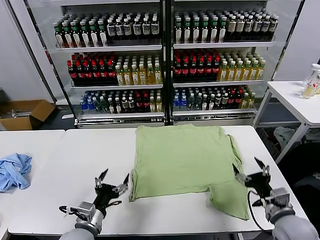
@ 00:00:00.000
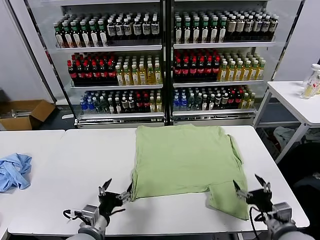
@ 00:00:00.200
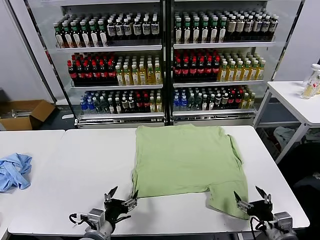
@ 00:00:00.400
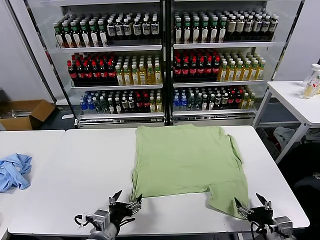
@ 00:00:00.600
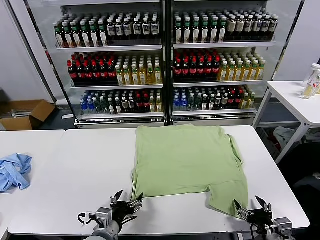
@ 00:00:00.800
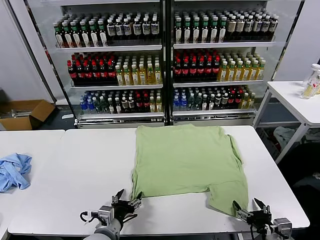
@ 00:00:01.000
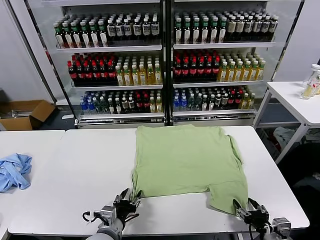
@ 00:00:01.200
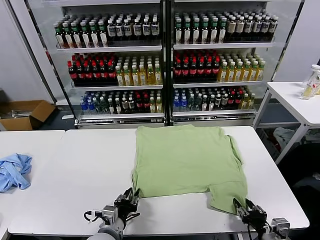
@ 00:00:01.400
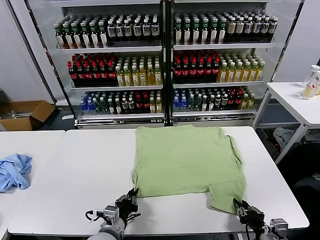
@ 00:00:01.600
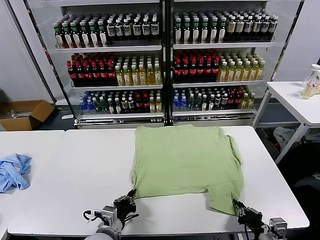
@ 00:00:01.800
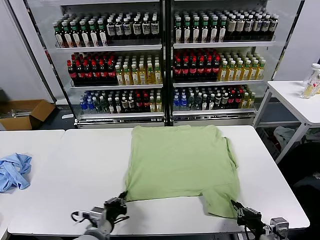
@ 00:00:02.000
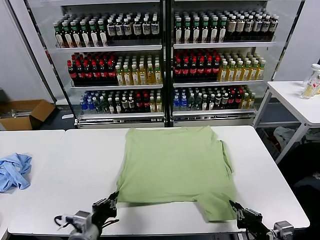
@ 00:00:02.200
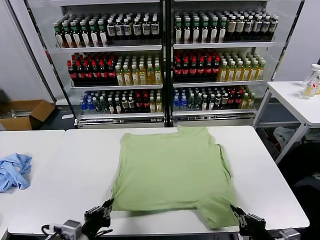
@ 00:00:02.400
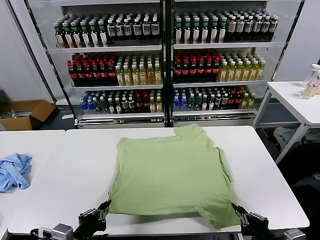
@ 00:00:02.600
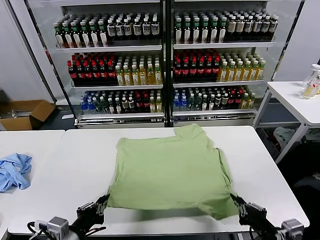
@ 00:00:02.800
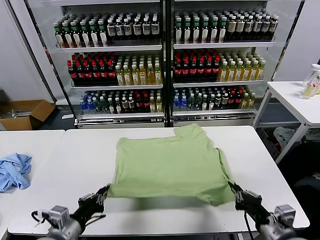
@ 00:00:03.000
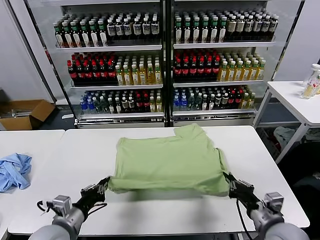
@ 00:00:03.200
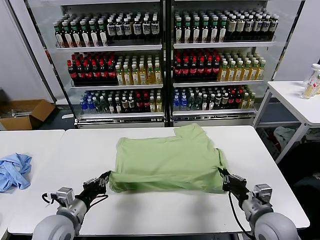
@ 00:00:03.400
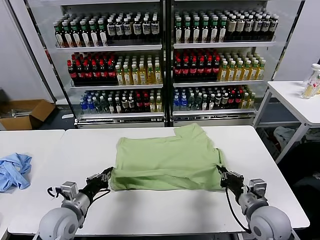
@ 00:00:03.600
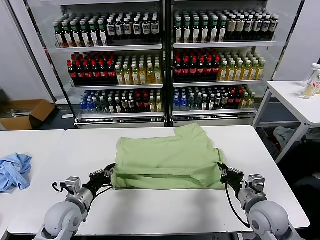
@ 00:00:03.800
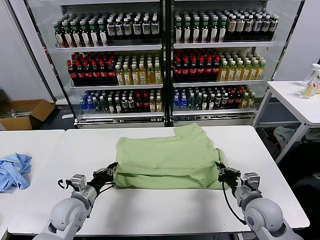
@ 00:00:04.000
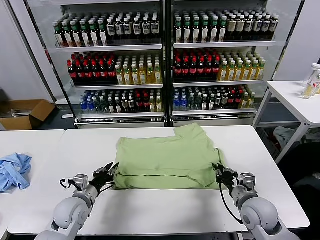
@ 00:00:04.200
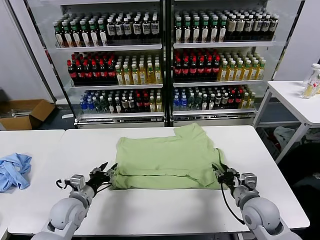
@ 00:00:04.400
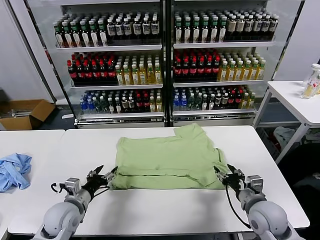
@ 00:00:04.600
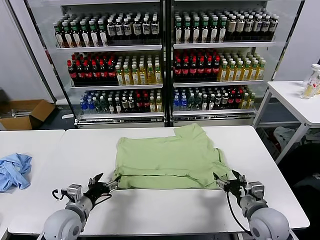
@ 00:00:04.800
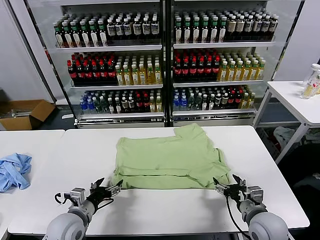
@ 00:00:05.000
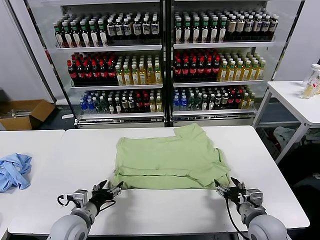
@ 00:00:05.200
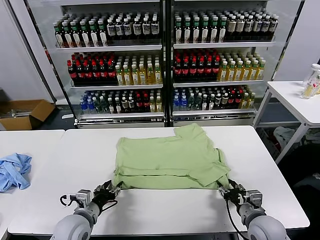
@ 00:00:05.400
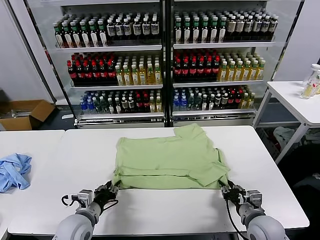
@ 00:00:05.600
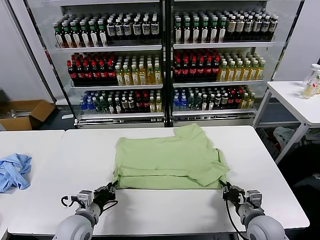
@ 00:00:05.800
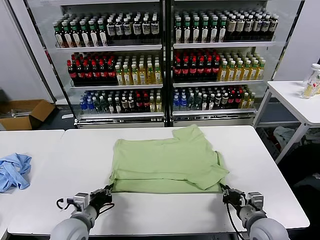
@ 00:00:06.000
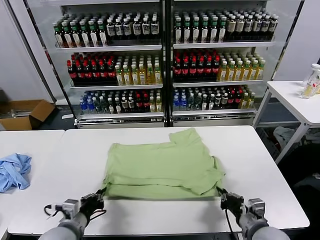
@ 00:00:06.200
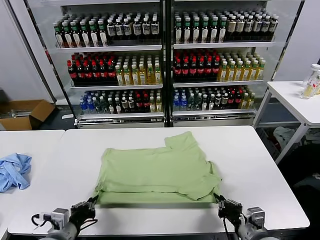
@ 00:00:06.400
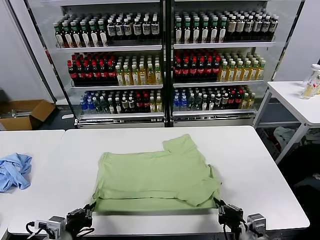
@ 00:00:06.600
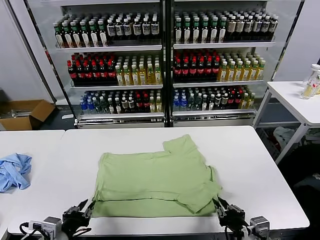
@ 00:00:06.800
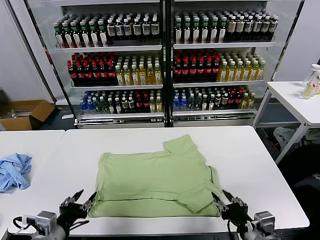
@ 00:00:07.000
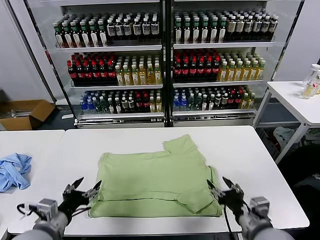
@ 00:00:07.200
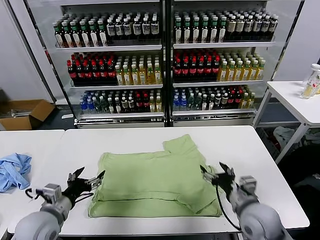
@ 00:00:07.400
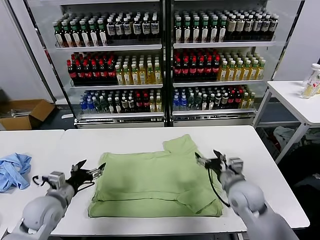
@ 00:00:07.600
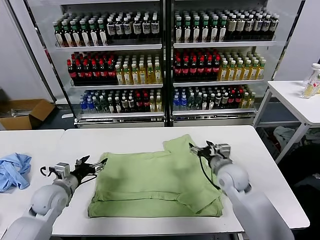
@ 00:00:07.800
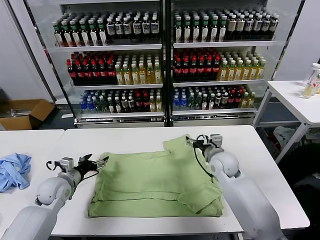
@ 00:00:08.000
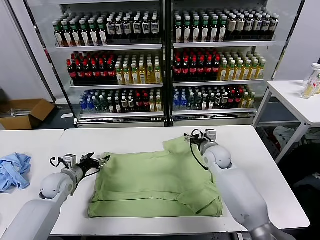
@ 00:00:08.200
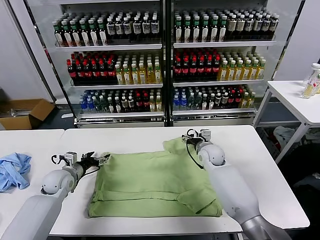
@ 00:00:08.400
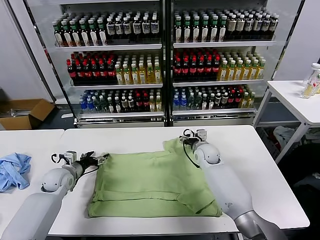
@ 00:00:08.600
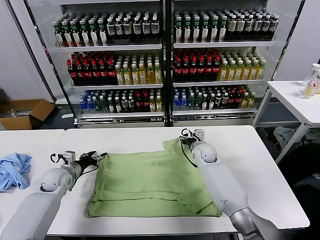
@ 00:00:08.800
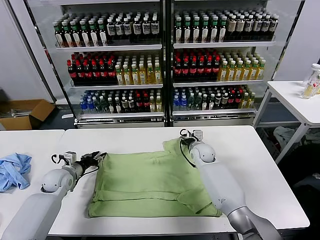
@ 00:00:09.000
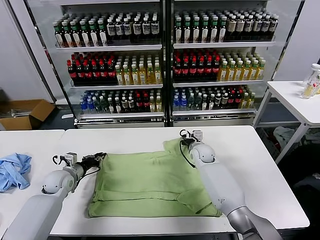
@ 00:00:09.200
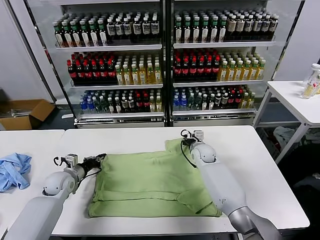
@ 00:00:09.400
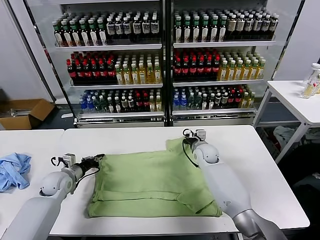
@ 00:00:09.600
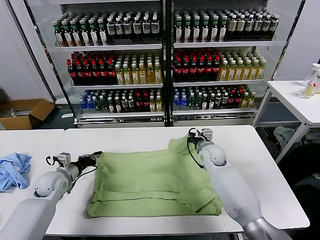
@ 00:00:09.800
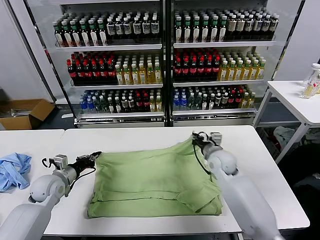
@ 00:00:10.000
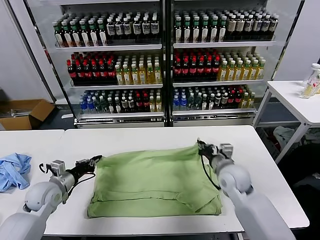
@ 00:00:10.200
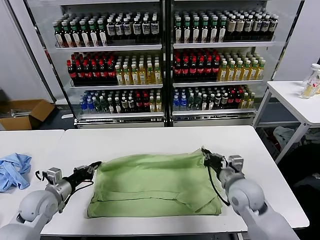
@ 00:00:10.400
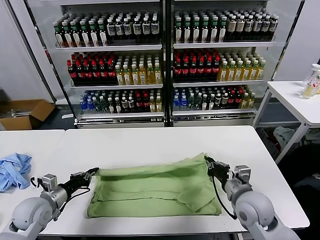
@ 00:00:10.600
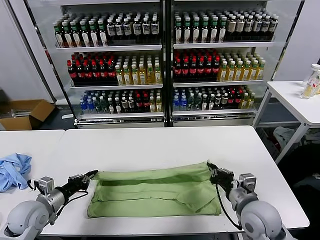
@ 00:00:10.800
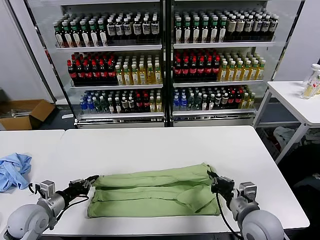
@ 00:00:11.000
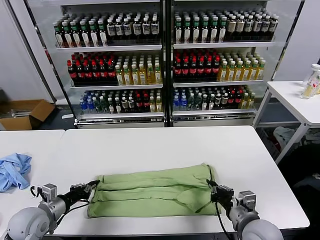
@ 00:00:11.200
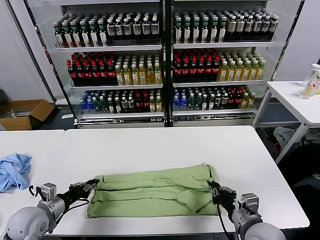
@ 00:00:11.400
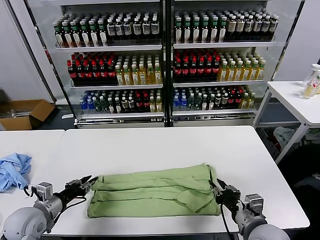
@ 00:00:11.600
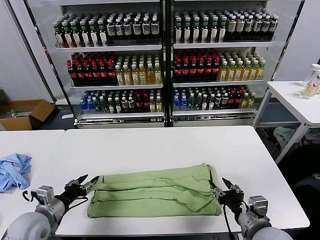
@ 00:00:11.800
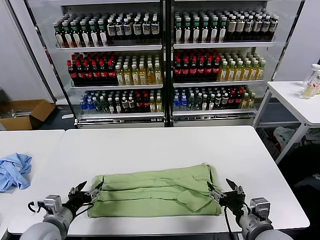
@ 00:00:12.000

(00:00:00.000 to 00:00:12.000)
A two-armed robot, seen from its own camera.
Task of the whole recording: fold and organize the clothes.
Step, 00:00:00.000 - 00:00:02.000: use both grippers simultaneously to clamp the lower edge of the clothing fabric.
Step, 00:00:02.200 - 00:00:04.400: use both grippers to drag the lower edge of the fabric forward and fold it over the upper edge.
Step, 00:00:04.600 - 00:00:06.800: Drag the clothes downward with both gripper.
Step, 00:00:07.200 - 00:00:09.400: use both grippers simultaneously to clamp the upper edge of the clothing fabric.
Step, 00:00:09.600 - 00:00:11.600: use both grippers to drag the upper edge of the fabric backward and fold it over the lower edge.
00:00:01.600 - 00:00:03.000: The left gripper shifts approximately 15 cm to the left and upward. The right gripper is displaced upward by roughly 10 cm.
00:00:03.000 - 00:00:04.400: The right gripper is displaced forward by approximately 10 cm, and opens up; the left gripper shifts roughly 15 cm forward and downward, and opens.
00:00:04.400 - 00:00:06.000: Both grippers travel together backward, about 5 cm. The left gripper closes its fingers. The right gripper closes.
00:00:06.000 - 00:00:07.600: The left gripper goes about 10 cm to the left and forward, and opens its fingers. The right gripper heads forward and to the left, covering some 15 cm, and opens up.
00:00:07.600 - 00:00:09.000: The right gripper heads forward and to the left, covering approximately 20 cm, and closes, while the left gripper moves forward and downward, about 15 cm, and closes its fingers.
00:00:09.000 - 00:00:10.400: The left gripper is displaced backward by roughly 10 cm, and closes up. Meanwhile the right gripper heads backward, covering roughly 20 cm, and closes up.
00:00:10.400 - 00:00:12.000: The left gripper goes about 10 cm backward and to the right, and opens; the right gripper moves backward, roughly 15 cm, and opens.

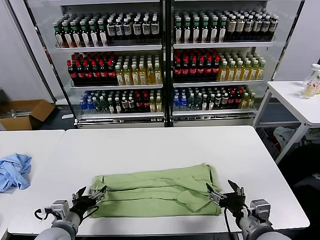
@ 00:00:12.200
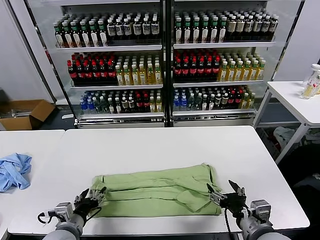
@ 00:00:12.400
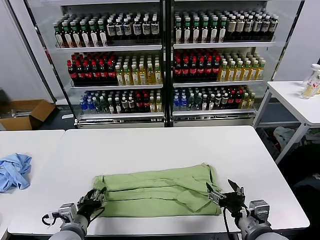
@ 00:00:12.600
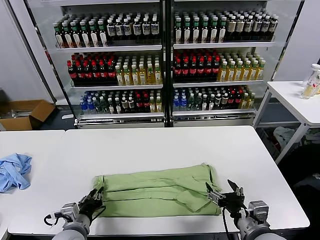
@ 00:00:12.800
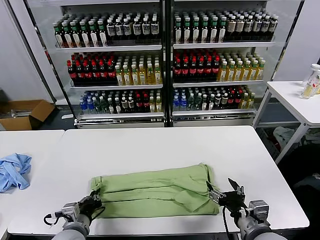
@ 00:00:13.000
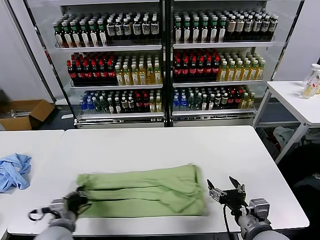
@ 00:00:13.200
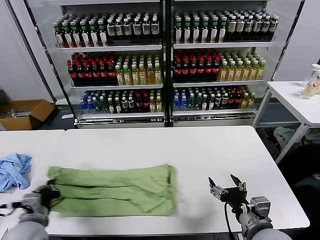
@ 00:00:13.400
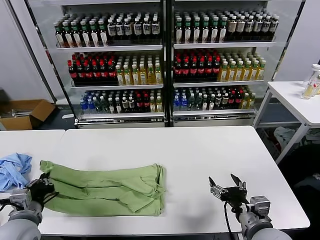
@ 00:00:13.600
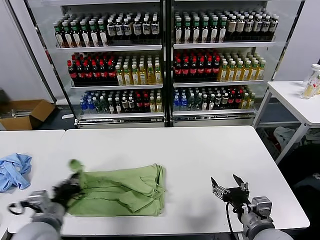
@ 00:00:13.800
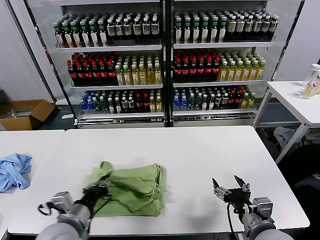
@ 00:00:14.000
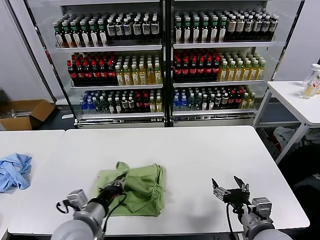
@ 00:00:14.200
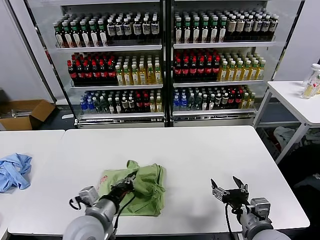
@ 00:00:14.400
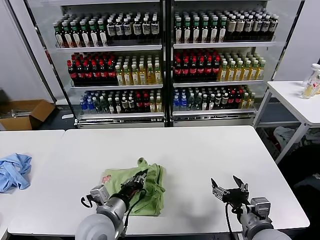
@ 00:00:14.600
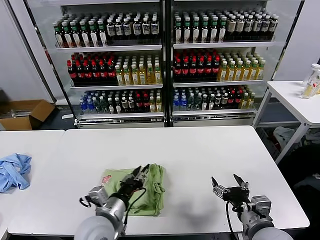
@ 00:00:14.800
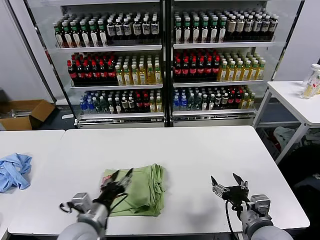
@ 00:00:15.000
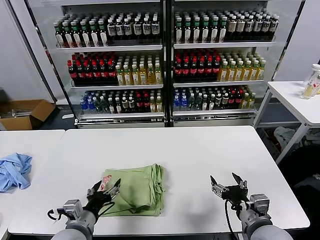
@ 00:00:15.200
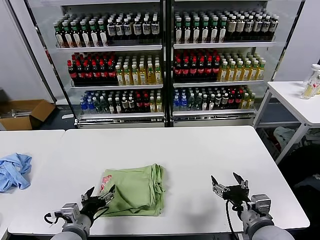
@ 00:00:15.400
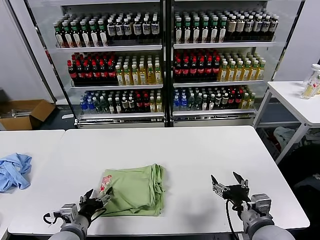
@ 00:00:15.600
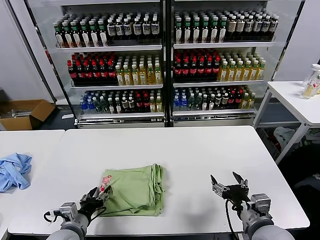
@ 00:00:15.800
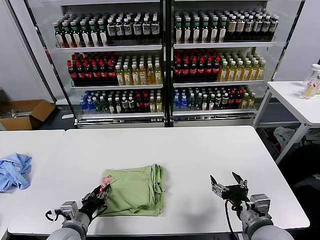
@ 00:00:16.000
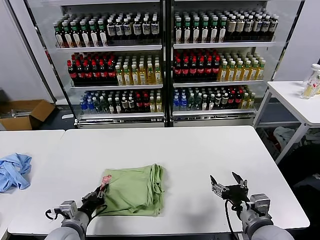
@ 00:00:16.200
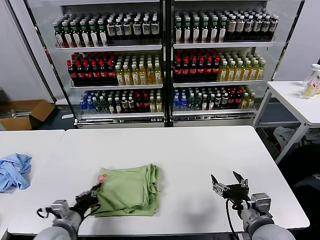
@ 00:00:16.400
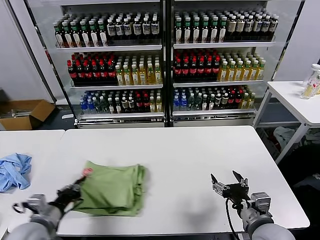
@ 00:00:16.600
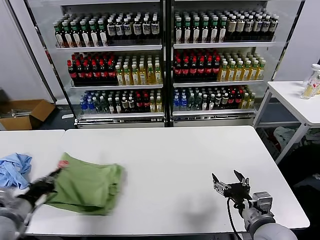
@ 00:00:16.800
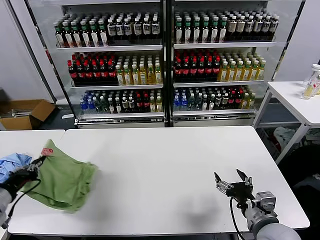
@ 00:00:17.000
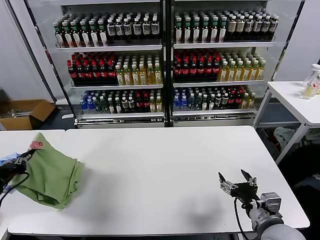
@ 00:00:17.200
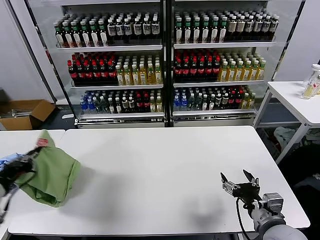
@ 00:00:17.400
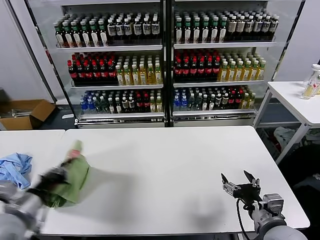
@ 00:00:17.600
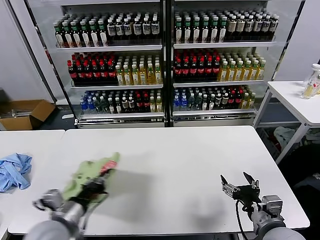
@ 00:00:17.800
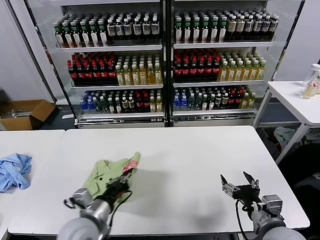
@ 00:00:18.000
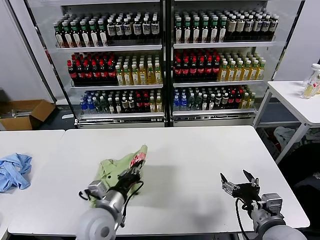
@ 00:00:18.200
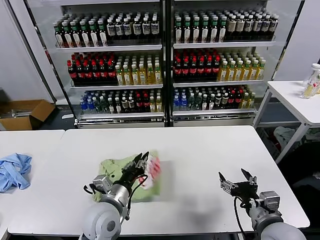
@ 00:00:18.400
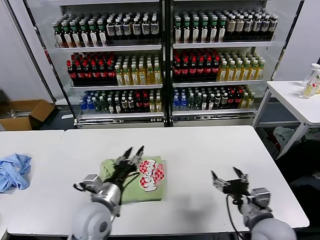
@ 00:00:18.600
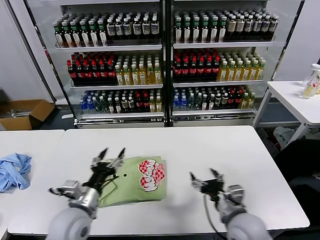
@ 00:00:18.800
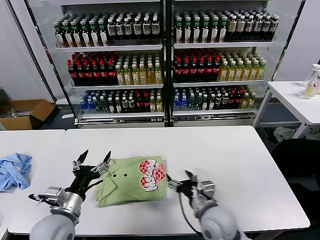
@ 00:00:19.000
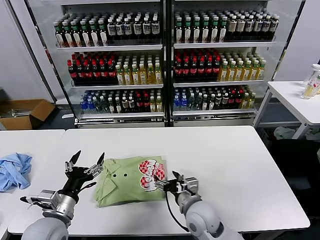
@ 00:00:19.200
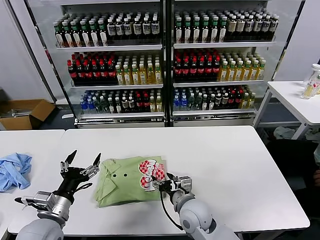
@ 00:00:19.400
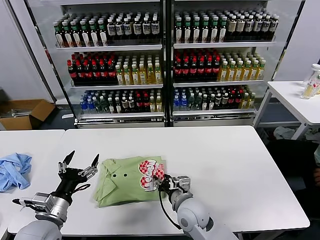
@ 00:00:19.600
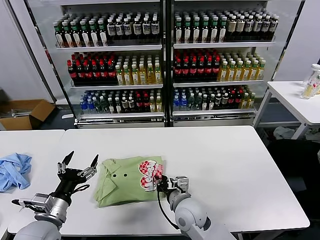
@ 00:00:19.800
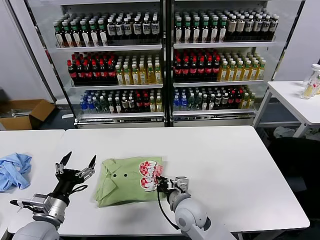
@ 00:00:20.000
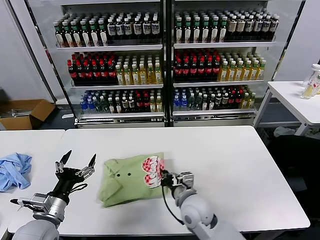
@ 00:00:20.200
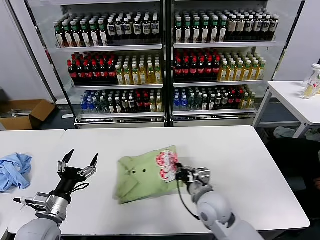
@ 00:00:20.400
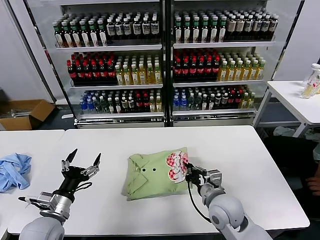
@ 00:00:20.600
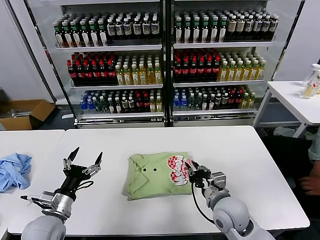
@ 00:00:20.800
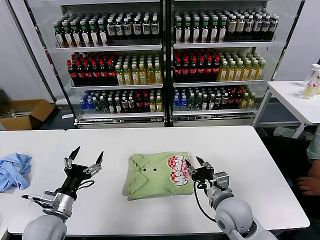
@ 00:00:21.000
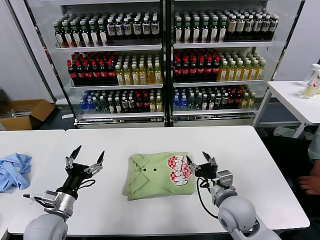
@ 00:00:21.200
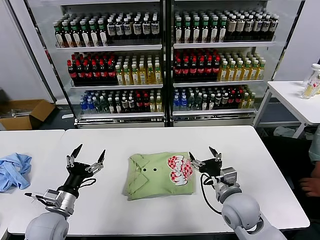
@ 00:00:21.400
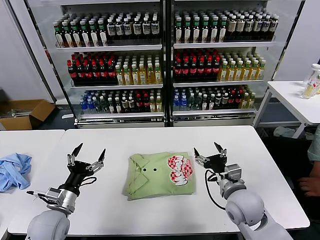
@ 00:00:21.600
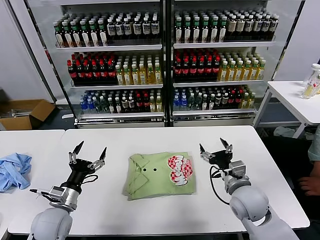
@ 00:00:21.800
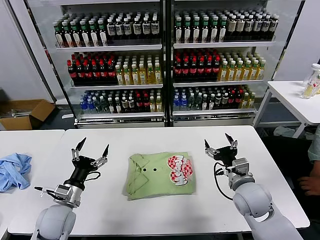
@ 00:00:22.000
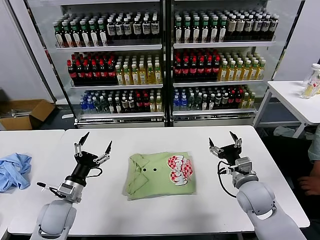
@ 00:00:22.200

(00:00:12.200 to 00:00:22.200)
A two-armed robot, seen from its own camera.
Task of the whole recording: fold and organize the clothes.
Step, 00:00:12.200 - 00:00:13.000: use the left gripper to clamp the left edge of the fabric.
Step, 00:00:13.200 - 00:00:14.800: use the left gripper to drag the left edge of the fabric to the left and folds it over the right edge.
Step, 00:00:15.000 - 00:00:18.400: Flip the folded clothes over with left gripper.
Step, 00:00:18.600 - 00:00:20.800: Drag the clothes to the center of the table.
00:00:12.200 - 00:00:13.600: The left gripper heads upward and to the left, covering roughly 10 cm, and closes.
00:00:13.600 - 00:00:15.000: The left gripper shifts about 15 cm to the right, and opens.
00:00:15.000 - 00:00:16.400: The left gripper is displaced to the left and downward by some 10 cm, and closes up.
00:00:16.400 - 00:00:18.000: The left gripper is displaced to the right and upward by some 10 cm.
00:00:18.000 - 00:00:19.400: The right gripper goes some 20 cm to the left and forward. The left gripper goes about 10 cm to the left, and opens.
00:00:19.400 - 00:00:20.800: The right gripper heads to the right, covering some 10 cm, and closes.
00:00:20.800 - 00:00:22.200: The right gripper travels to the right by some 10 cm, and opens up, while the left gripper is displaced forward by approximately 5 cm.
